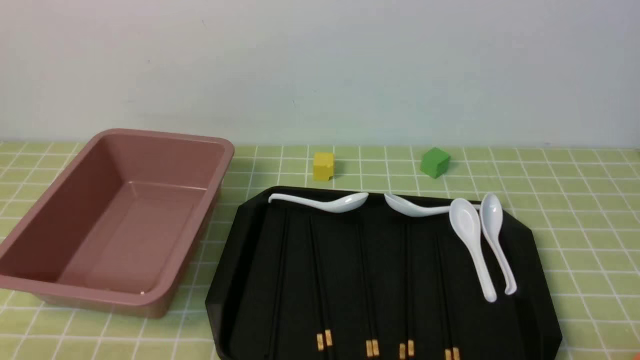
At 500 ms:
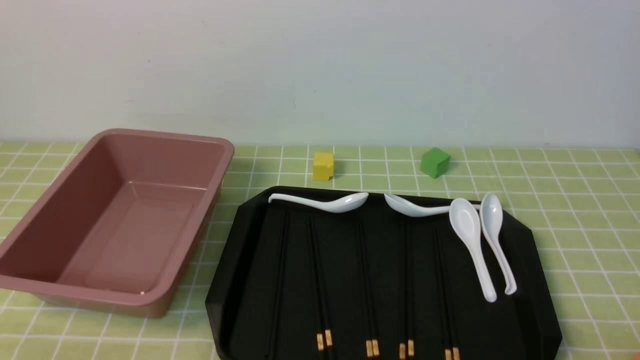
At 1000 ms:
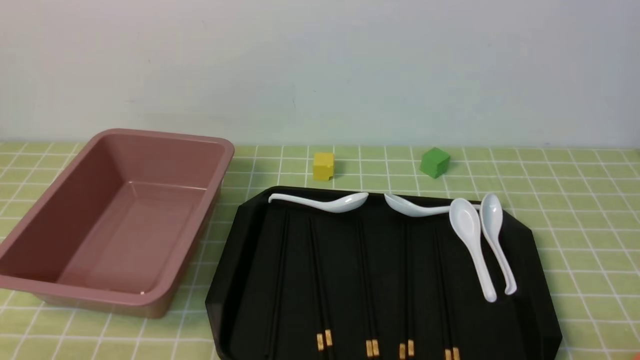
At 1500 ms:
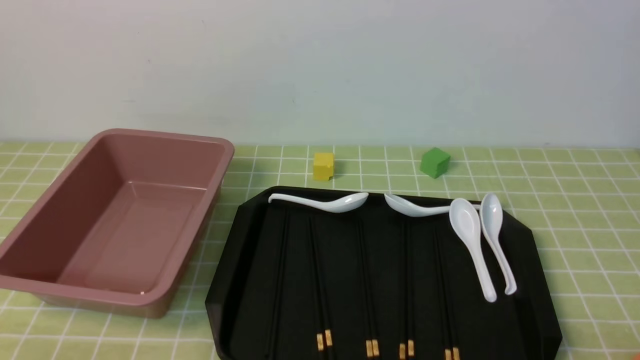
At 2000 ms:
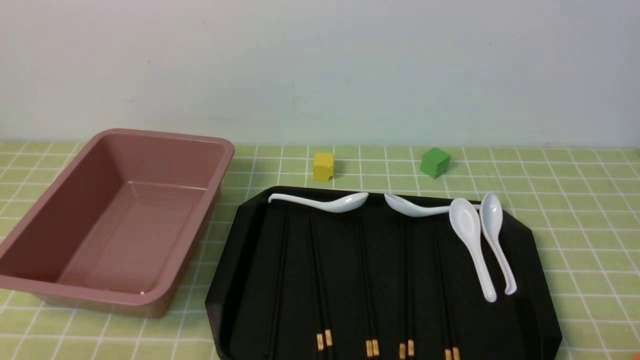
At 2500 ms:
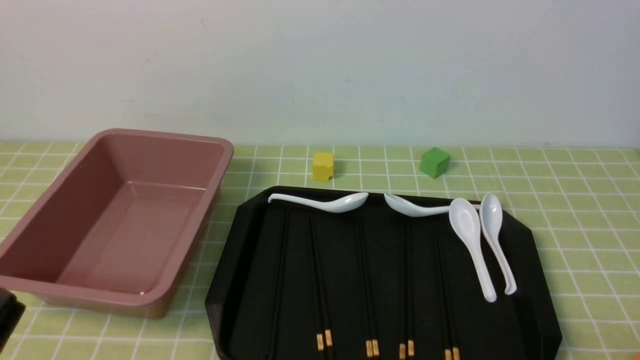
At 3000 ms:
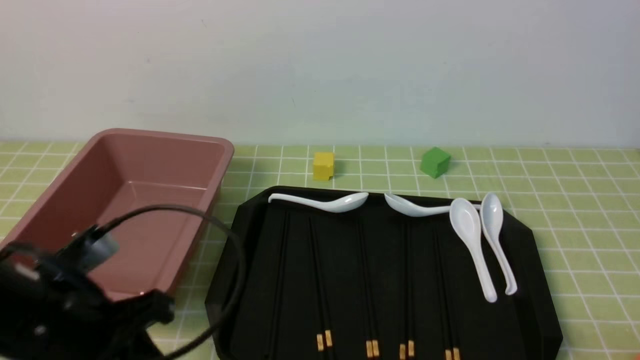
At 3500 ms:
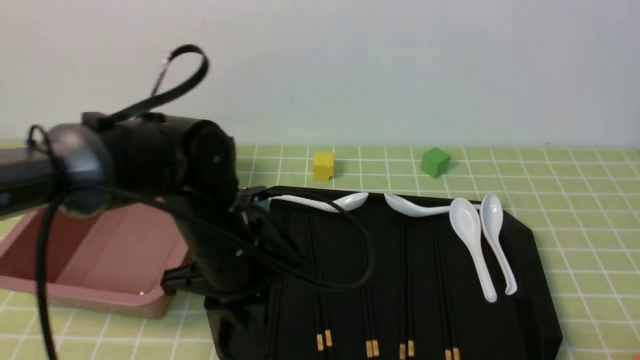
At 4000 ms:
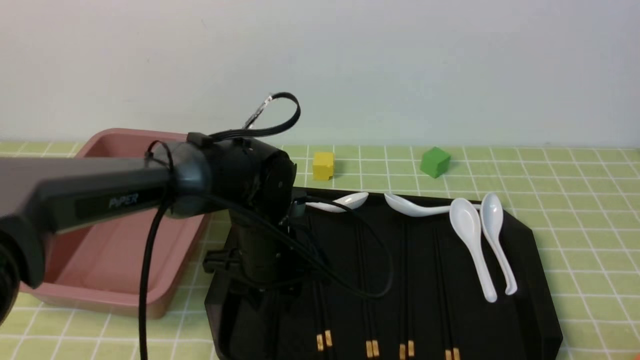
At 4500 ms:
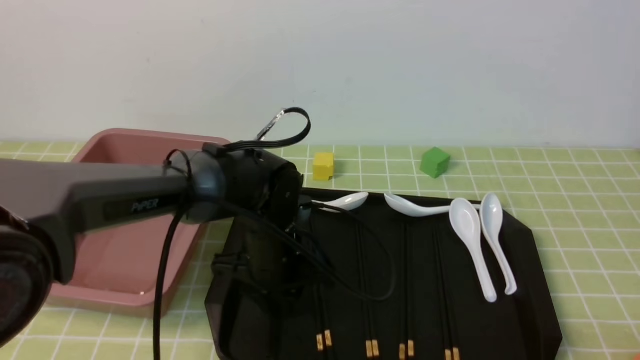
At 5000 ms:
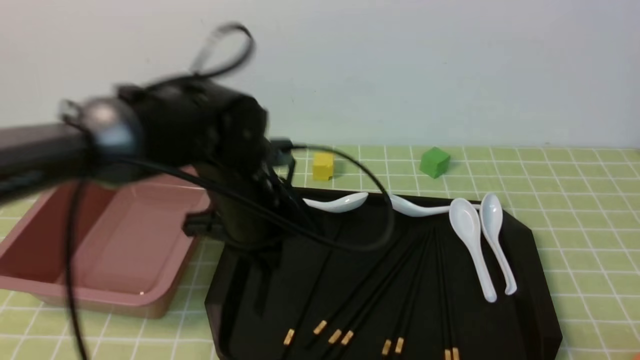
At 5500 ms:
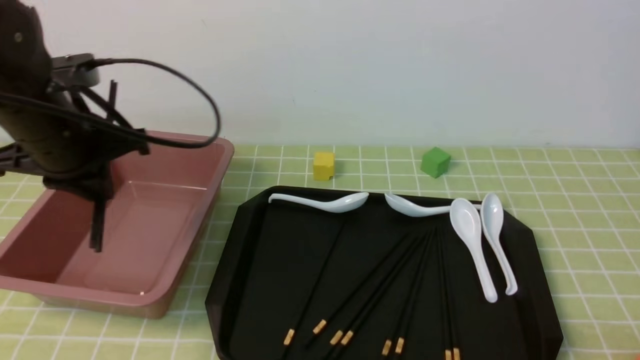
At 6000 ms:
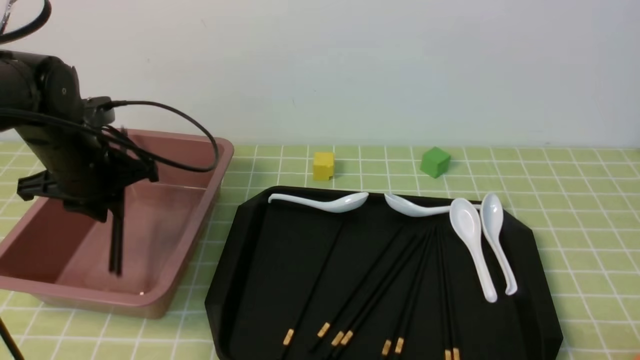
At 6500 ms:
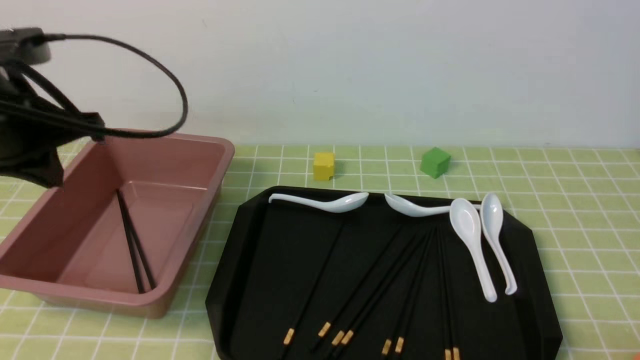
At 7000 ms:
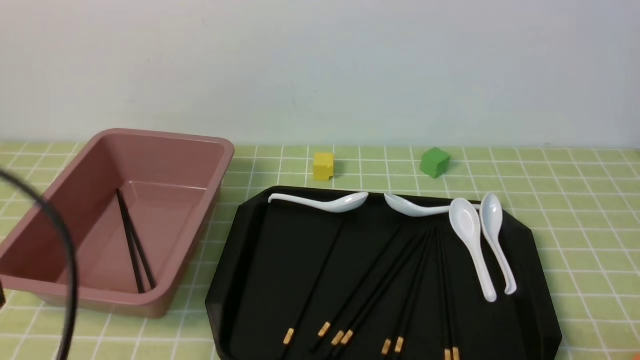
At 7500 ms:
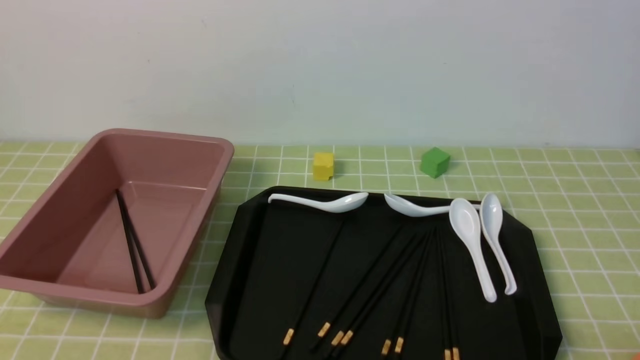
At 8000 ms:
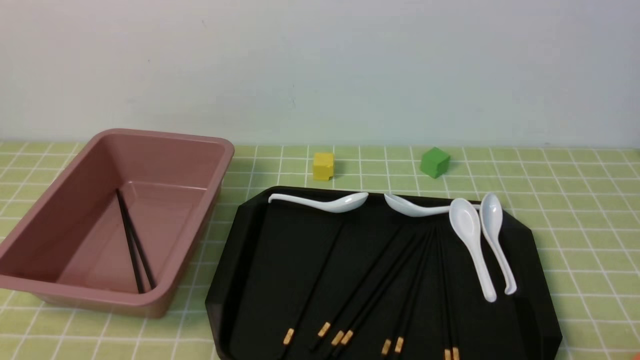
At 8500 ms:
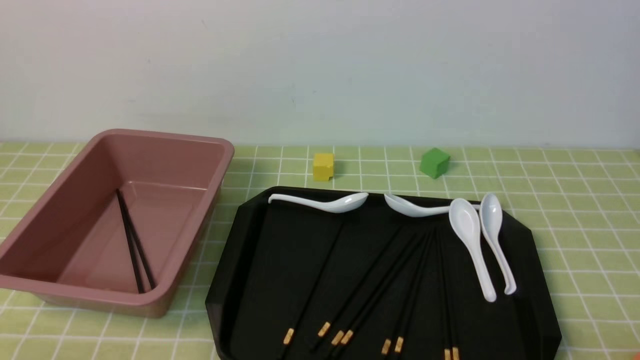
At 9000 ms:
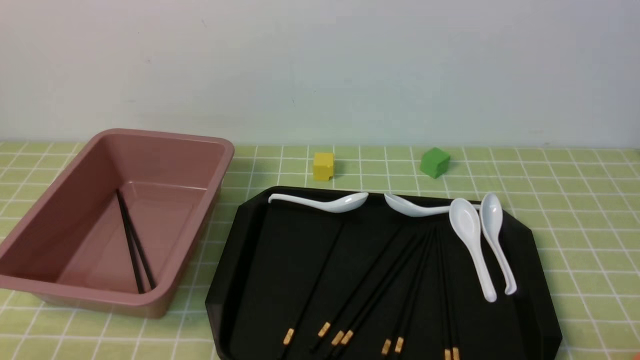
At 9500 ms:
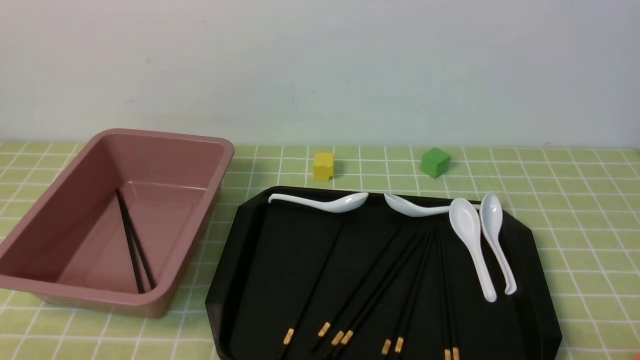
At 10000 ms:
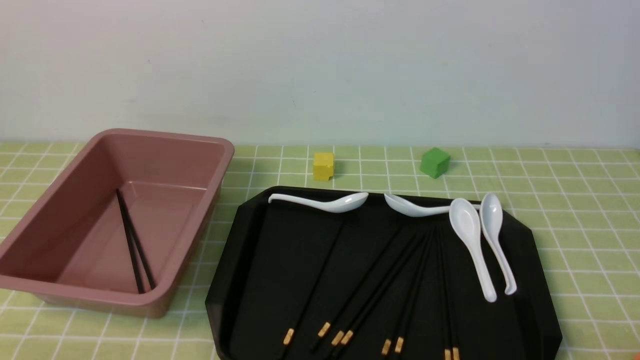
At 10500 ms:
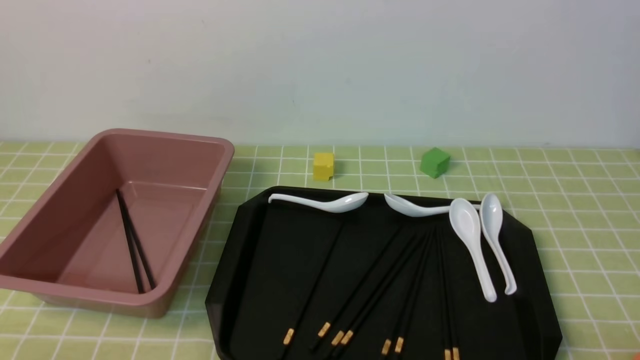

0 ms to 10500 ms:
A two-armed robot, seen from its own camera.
Step, 0 ms to 5000 ms: use the left arm to grab a pair of chopsticks.
Step, 5500 ms to 6000 ms: use the left arm to put the chopsticks into the lunch box.
2000 ms to 4000 ms: The left gripper goes roughly 35 cm forward and to the right, and closes and opens again.
4000 ms to 6500 ms: The left gripper is displaced to the left and upward by roughly 25 cm, and closes.
6500 ms to 8500 ms: The left gripper moves backward and downward, roughly 30 cm.
8500 ms to 10500 ms: Both grippers stay put.

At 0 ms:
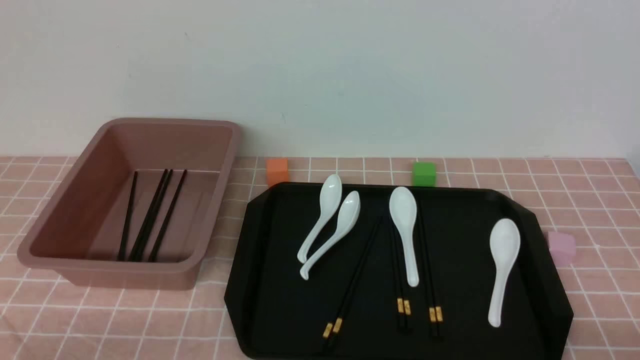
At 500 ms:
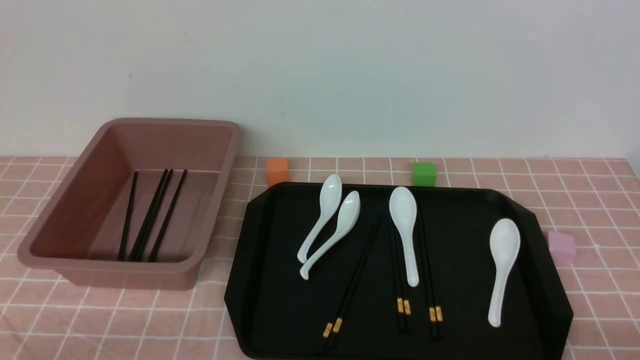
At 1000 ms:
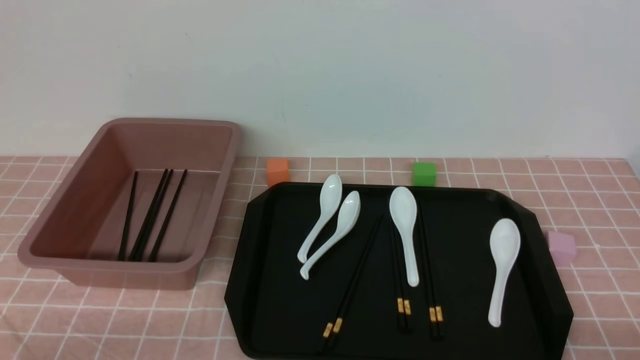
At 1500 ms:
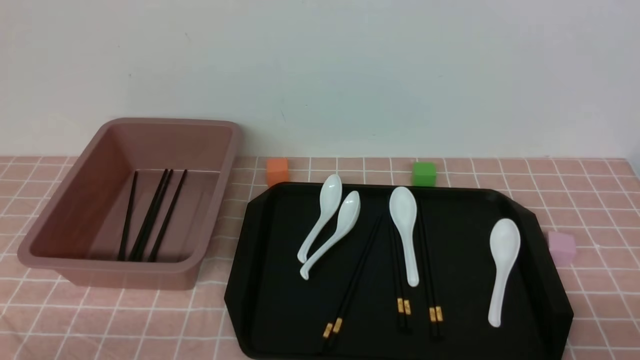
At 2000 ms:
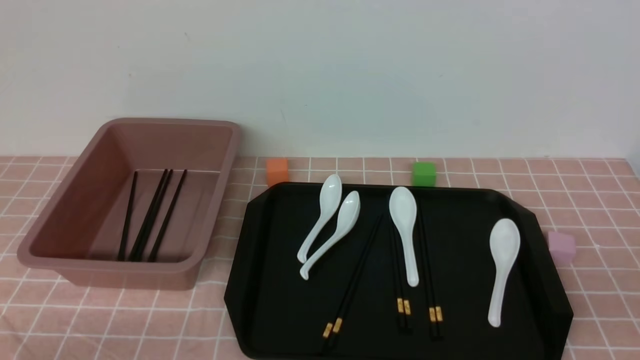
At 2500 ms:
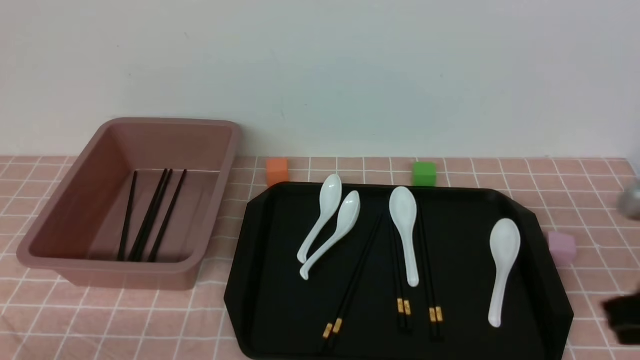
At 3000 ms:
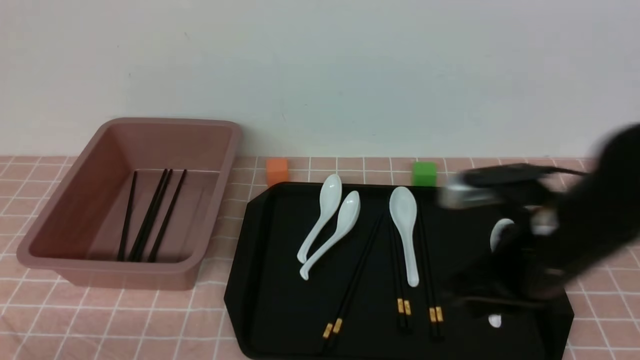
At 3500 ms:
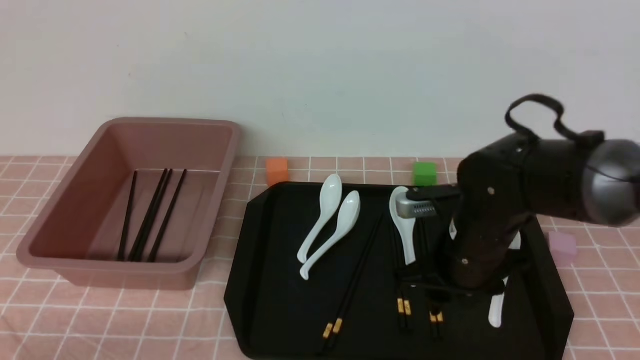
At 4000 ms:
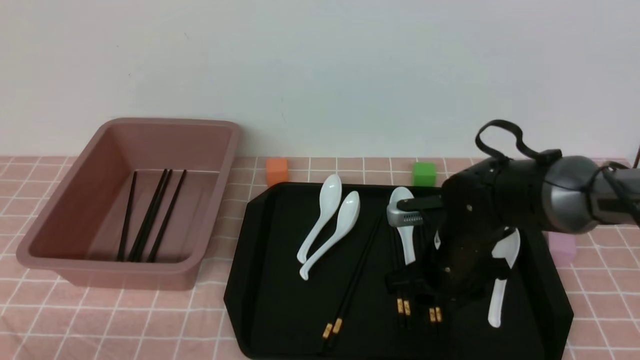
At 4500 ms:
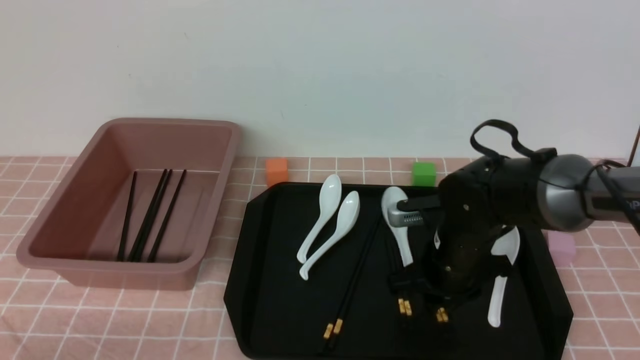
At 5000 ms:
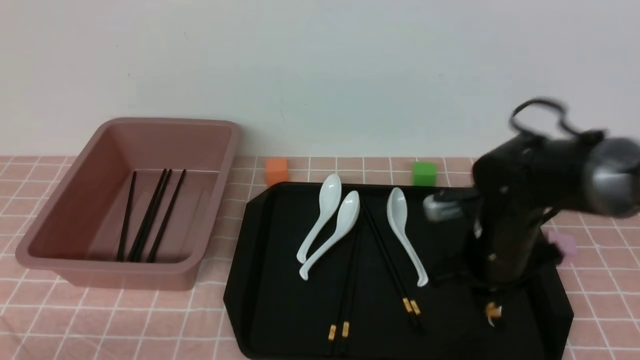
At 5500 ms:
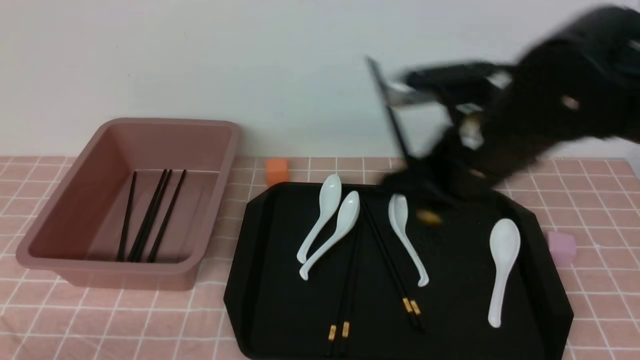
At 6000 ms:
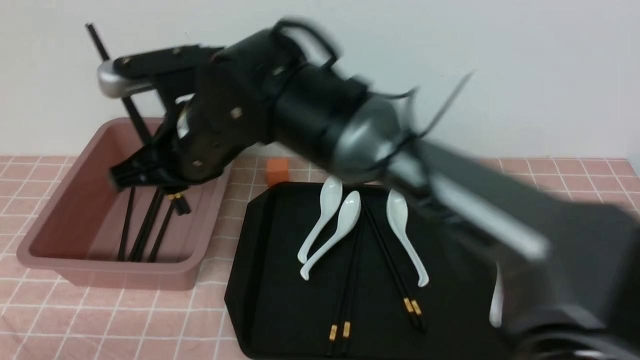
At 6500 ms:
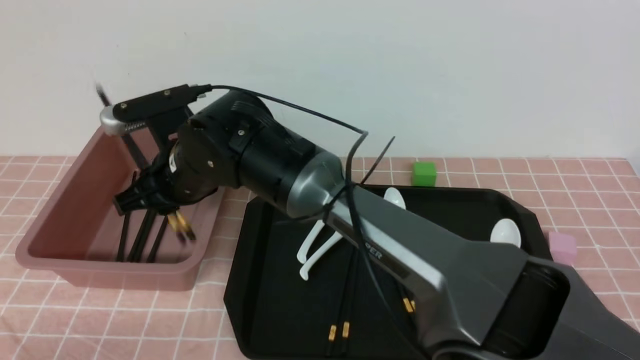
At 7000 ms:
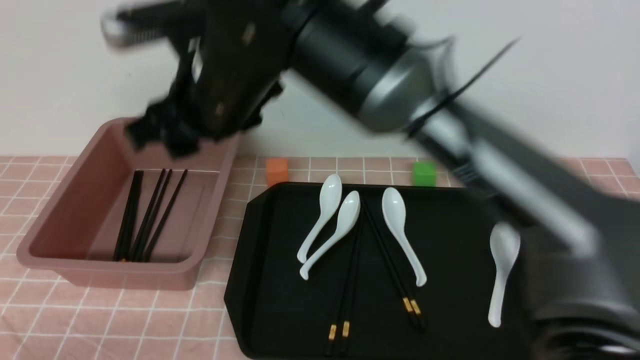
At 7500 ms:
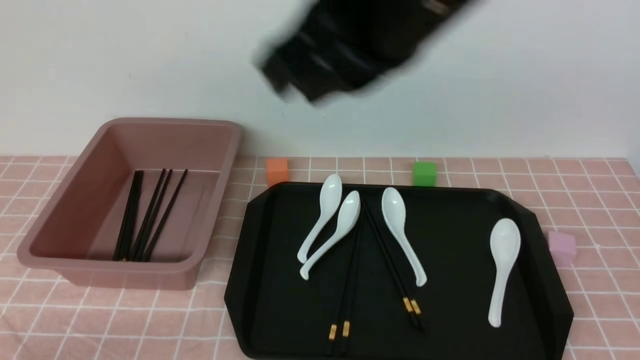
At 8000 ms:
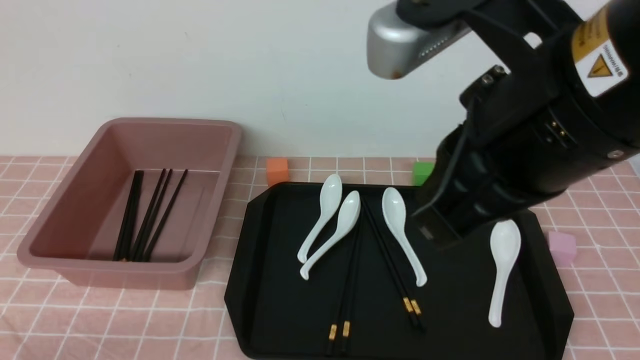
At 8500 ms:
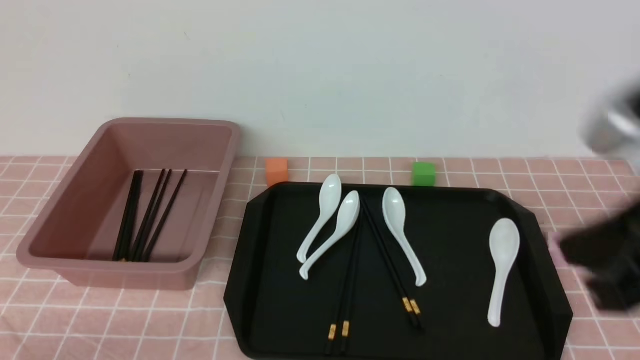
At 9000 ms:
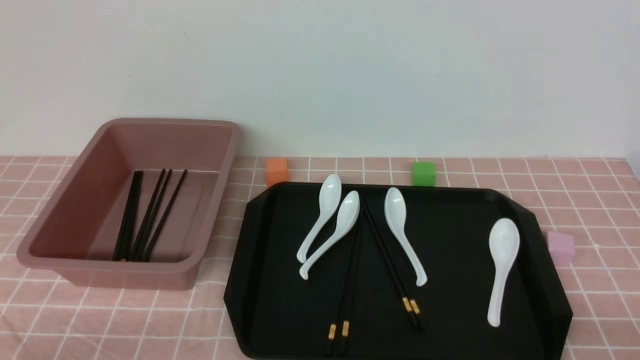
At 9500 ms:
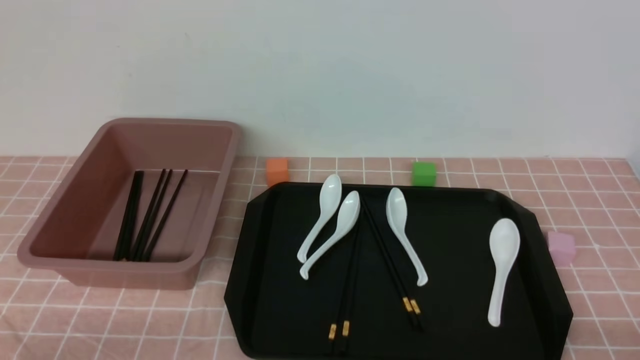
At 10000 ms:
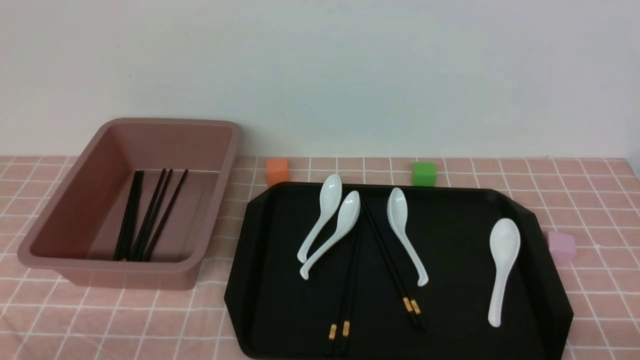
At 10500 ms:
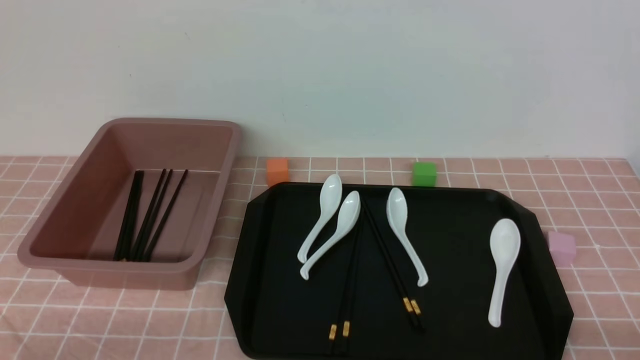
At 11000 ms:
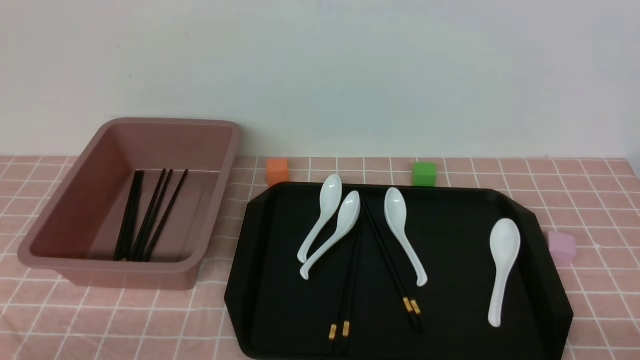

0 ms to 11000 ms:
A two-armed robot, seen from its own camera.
Step, 0 ms to 5000 ms: use the right arm to grab a pair of chopsticks.
Step, 5500 ms to 6500 ms: use the right arm to put the chopsticks into the lunch box.
2000 ms to 3500 ms: The right gripper heads forward, to the left and downward, covering about 30 cm, and opens up.
3500 ms to 5500 ms: The right gripper shifts about 15 cm upward, and closes up.
5500 ms to 7500 ms: The right gripper is displaced upward and backward by roughly 15 cm, goes to the left and returns, roughly 20 cm each way, and opens and closes again.
7500 ms to 9000 ms: The right gripper heads downward, to the right and backward, covering roughly 40 cm.
